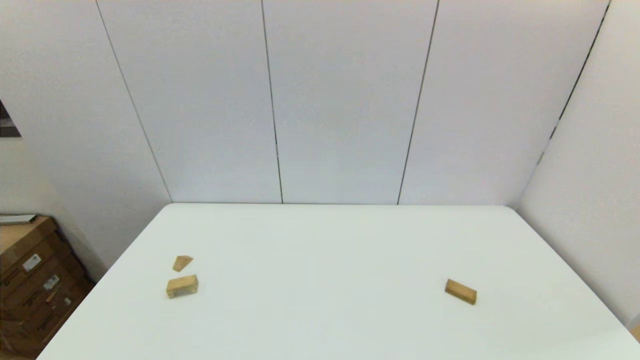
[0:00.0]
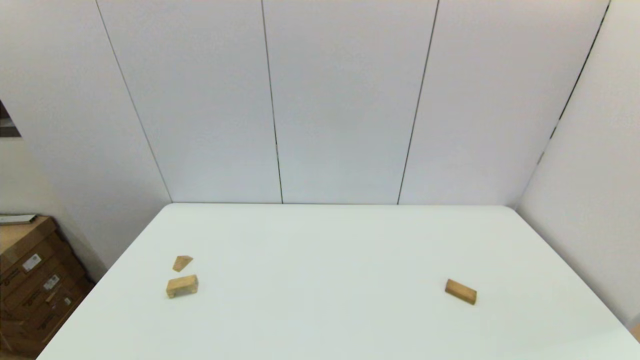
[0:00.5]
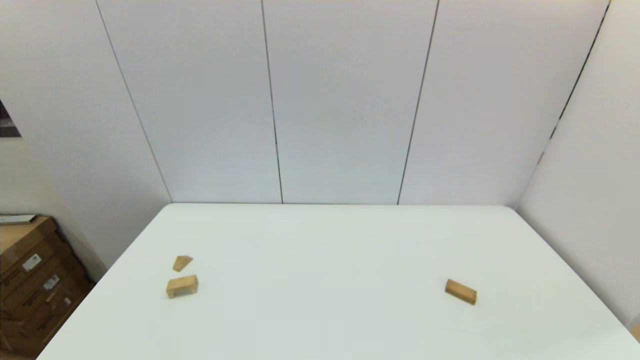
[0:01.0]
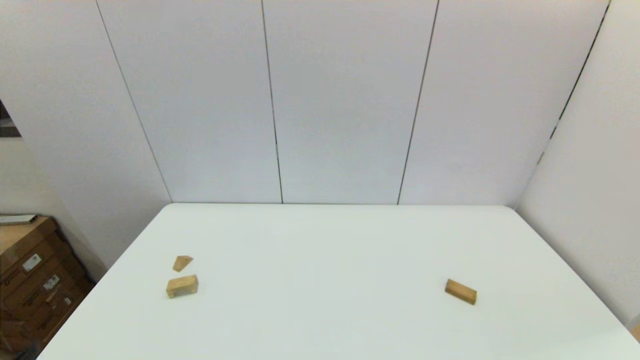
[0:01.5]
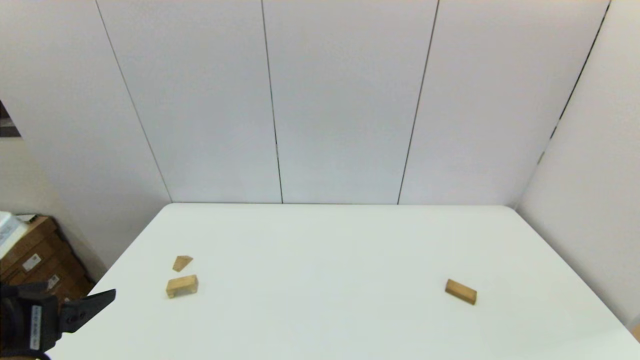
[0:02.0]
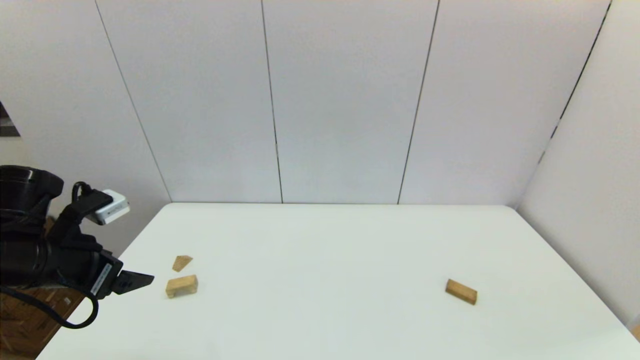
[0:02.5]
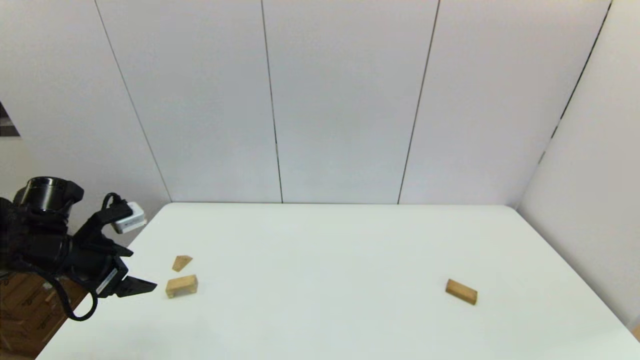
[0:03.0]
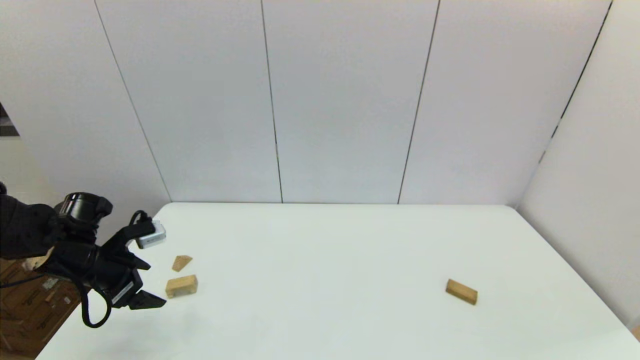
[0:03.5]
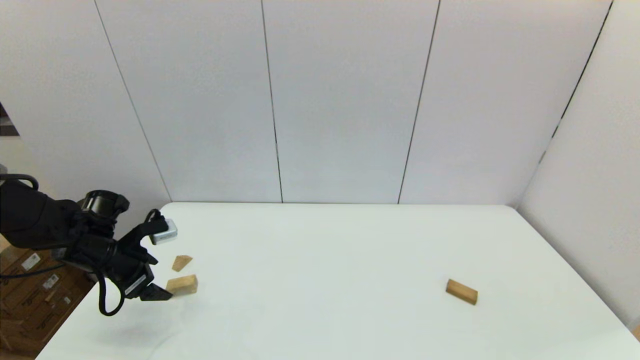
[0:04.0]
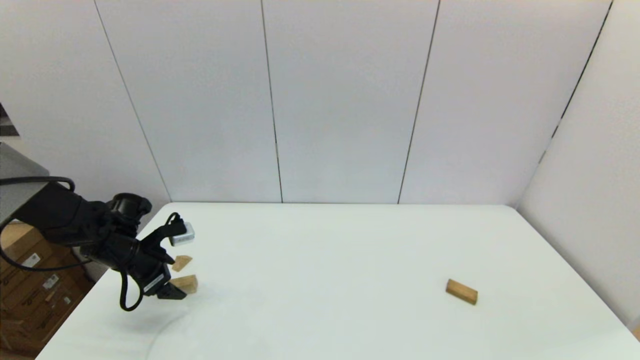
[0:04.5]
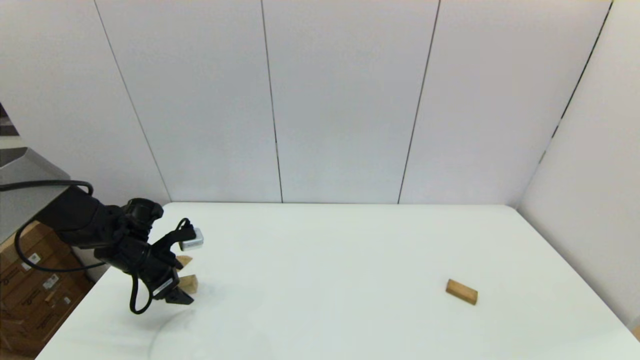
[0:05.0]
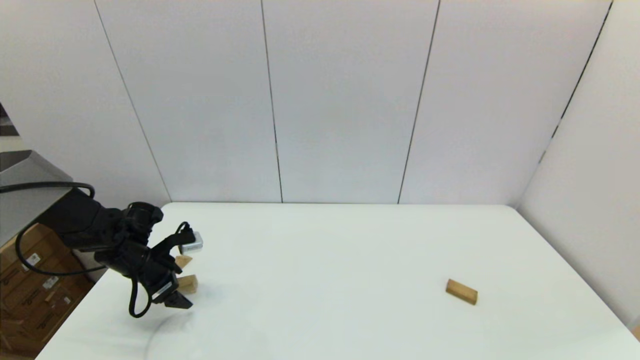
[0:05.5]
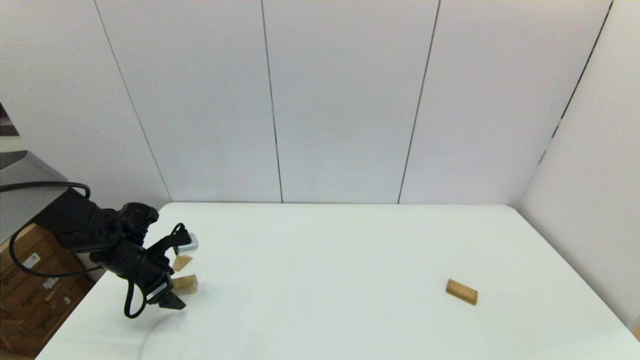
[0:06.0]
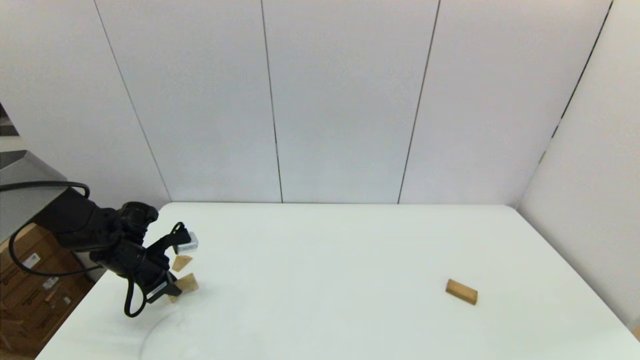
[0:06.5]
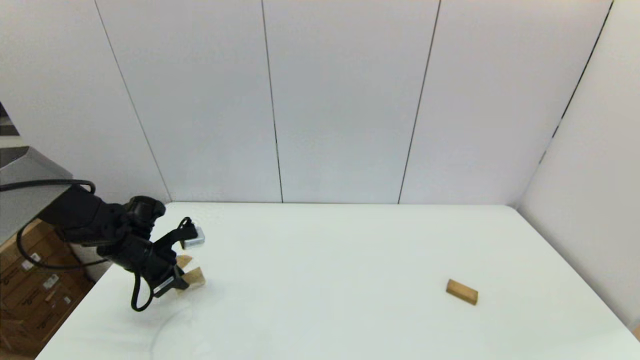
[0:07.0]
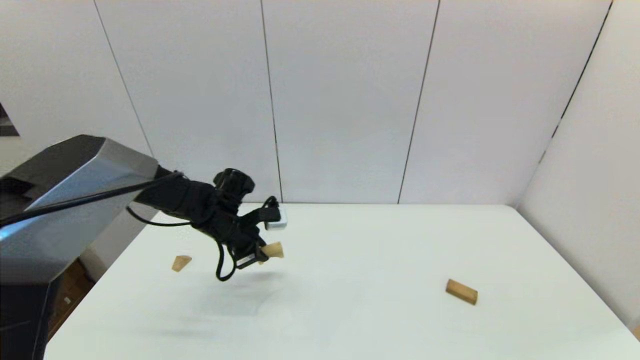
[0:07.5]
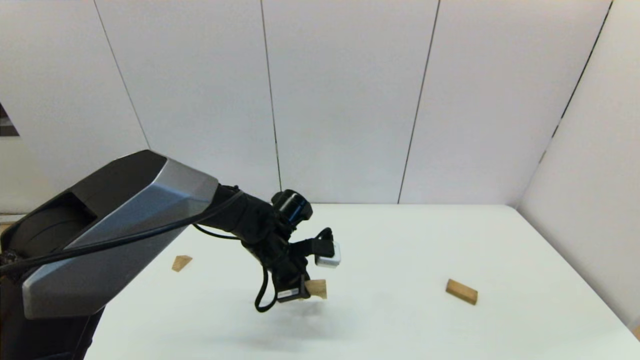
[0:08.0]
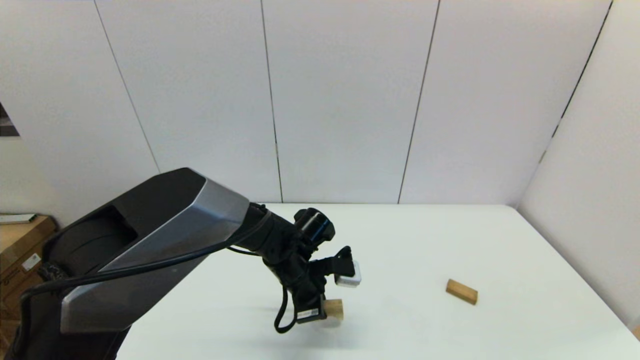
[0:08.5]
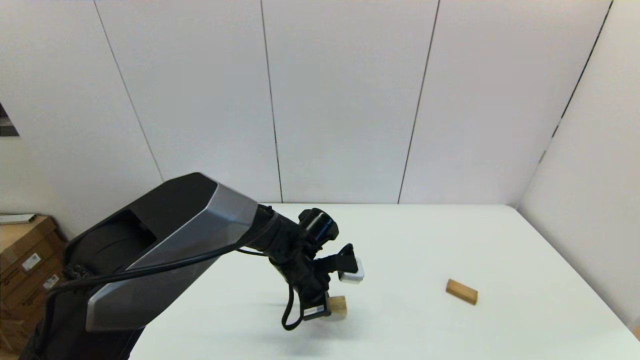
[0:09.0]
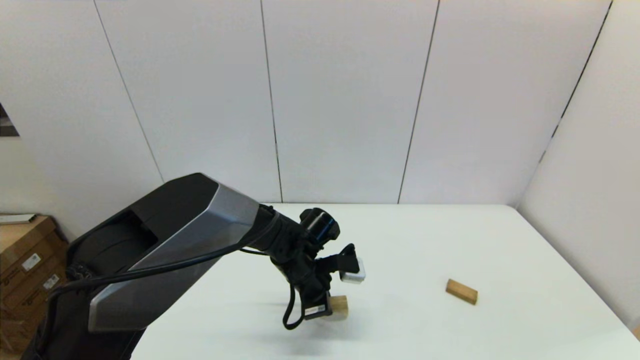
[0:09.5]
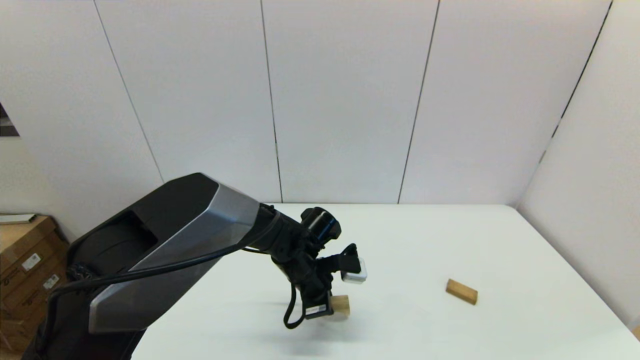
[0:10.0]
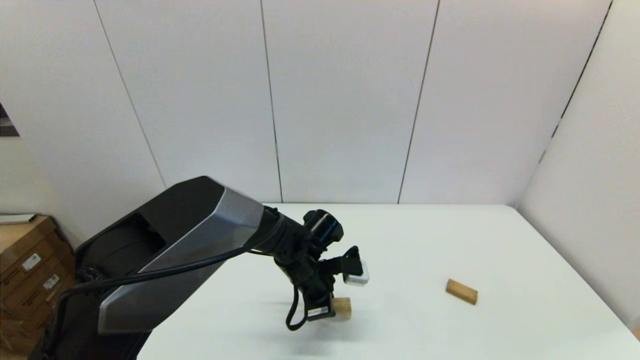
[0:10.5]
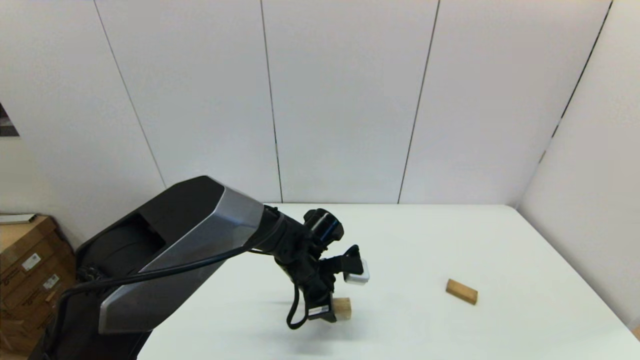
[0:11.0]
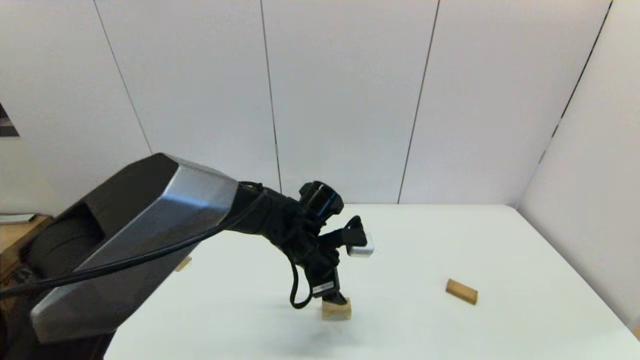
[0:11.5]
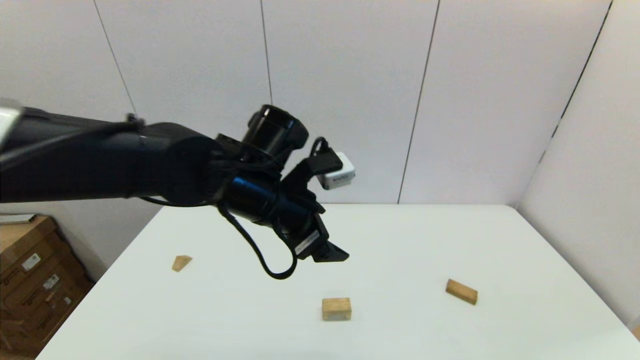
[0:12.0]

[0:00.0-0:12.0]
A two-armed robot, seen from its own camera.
Task of the whole recording: place the arched building blocks in the center of the table, set up the rectangular building blocks, and then set up the triangular building blocks.
Step, 0:01.5 to 0:06.5: Grasp the arch-shaped block with the left gripper.
Step, 0:07.0 to 0:10.5: Place the arch-shaped block in the center of view with the left gripper.
0:00.0 to 0:02.0: The left gripper is displaced forward and upward by some 15 cm.
0:02.0 to 0:04.0: The left gripper shifts about 25 cm forward and downward.
0:04.0 to 0:06.0: The left gripper moves roughly 5 cm.
0:06.0 to 0:08.0: The left gripper moves to the right, about 25 cm, and closes.
0:08.0 to 0:10.0: The left gripper moves about 5 cm.
0:10.0 to 0:12.0: The left gripper goes about 20 cm upward, and opens up.

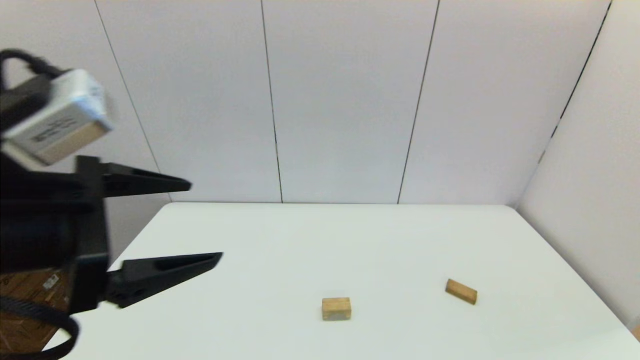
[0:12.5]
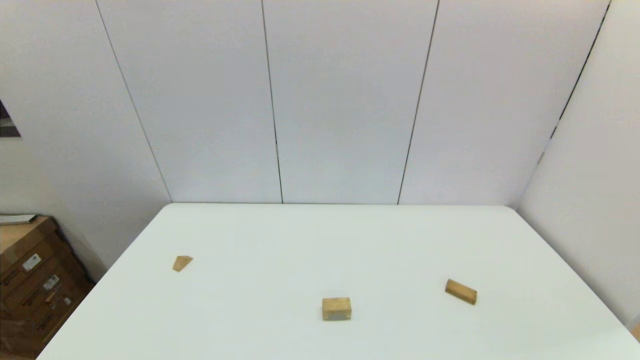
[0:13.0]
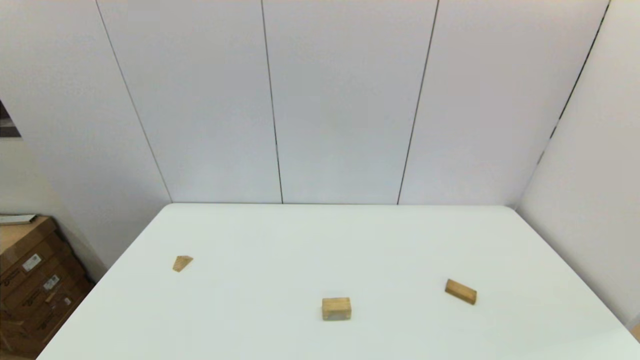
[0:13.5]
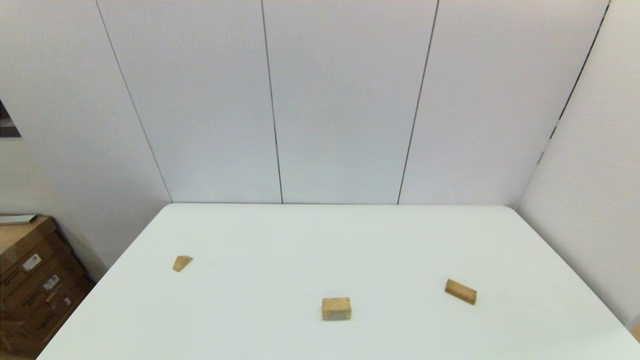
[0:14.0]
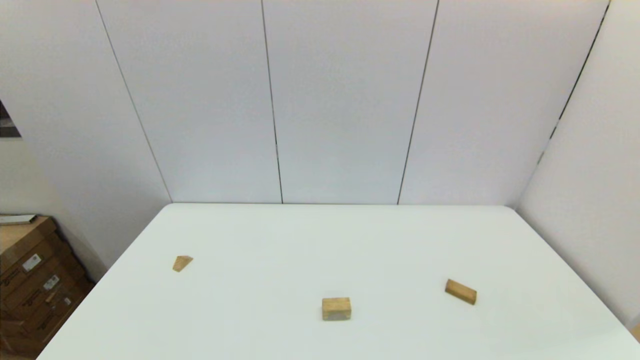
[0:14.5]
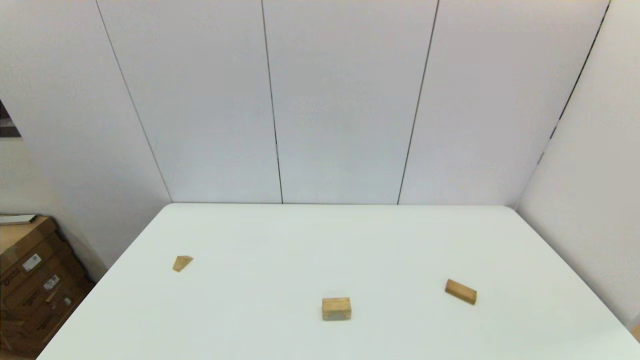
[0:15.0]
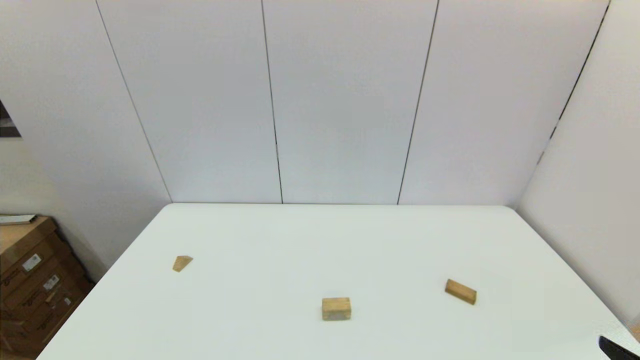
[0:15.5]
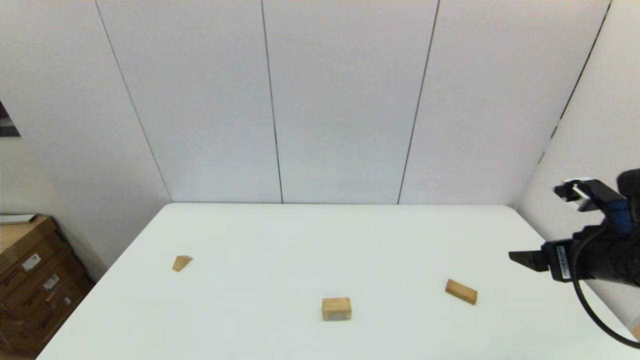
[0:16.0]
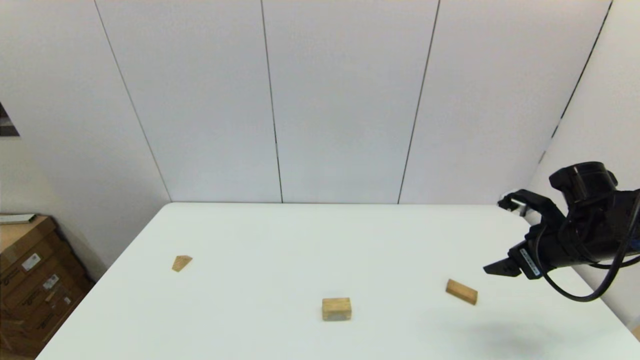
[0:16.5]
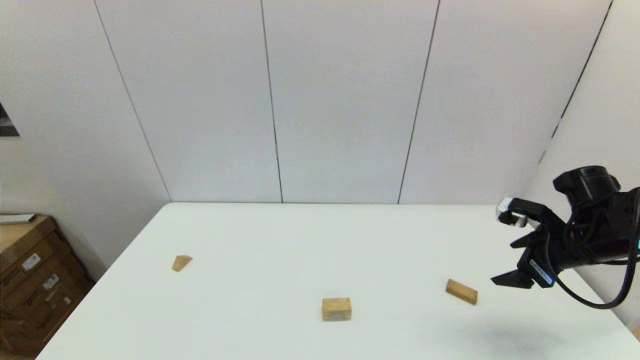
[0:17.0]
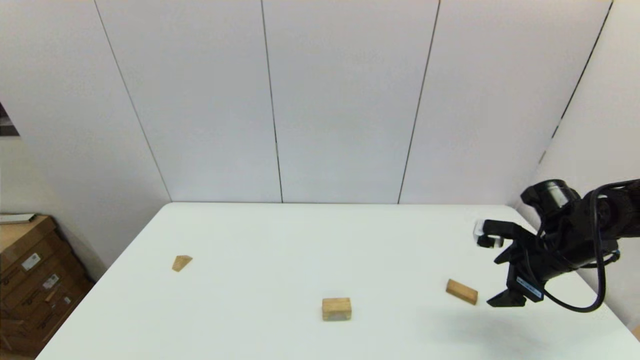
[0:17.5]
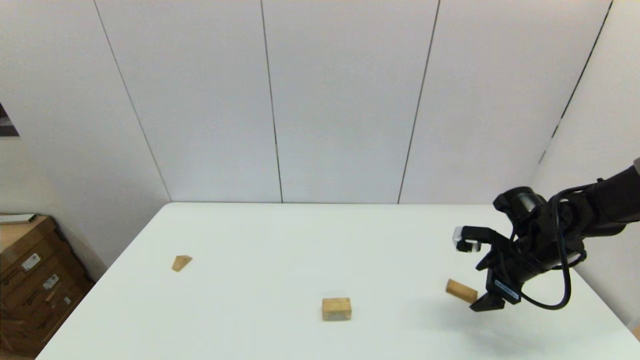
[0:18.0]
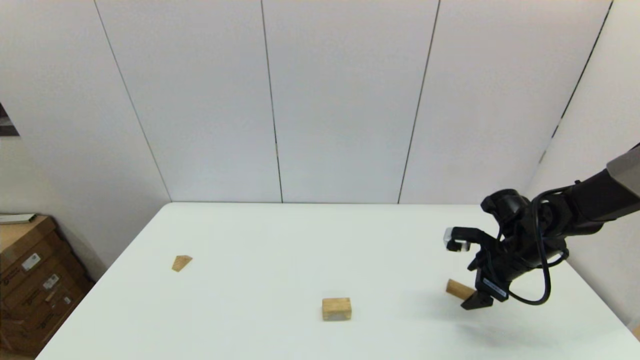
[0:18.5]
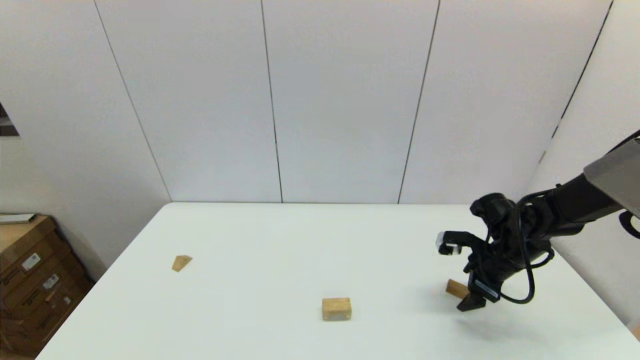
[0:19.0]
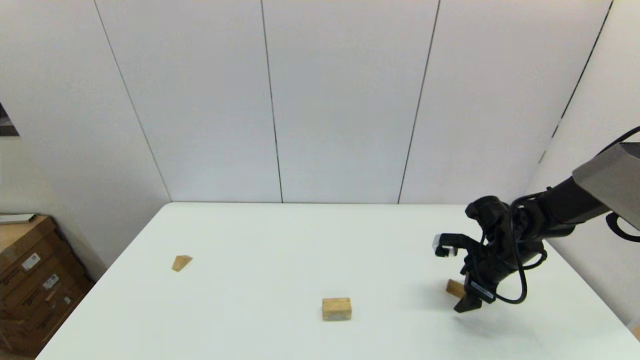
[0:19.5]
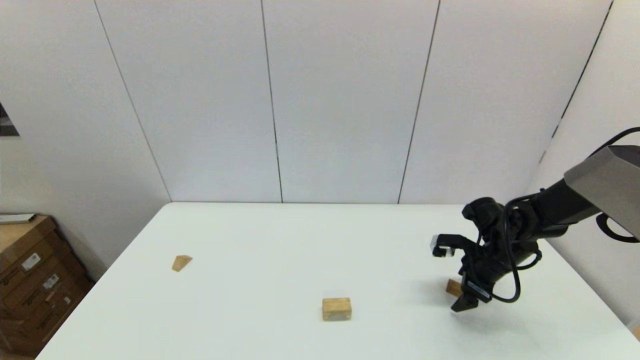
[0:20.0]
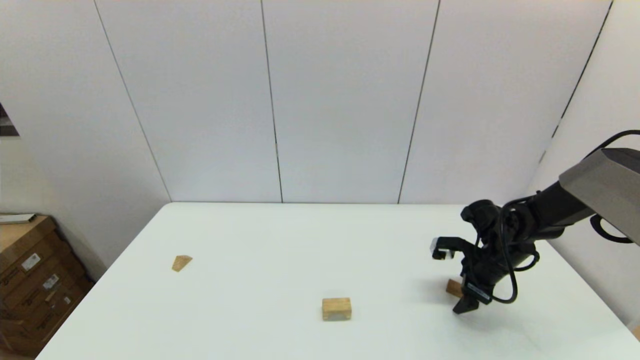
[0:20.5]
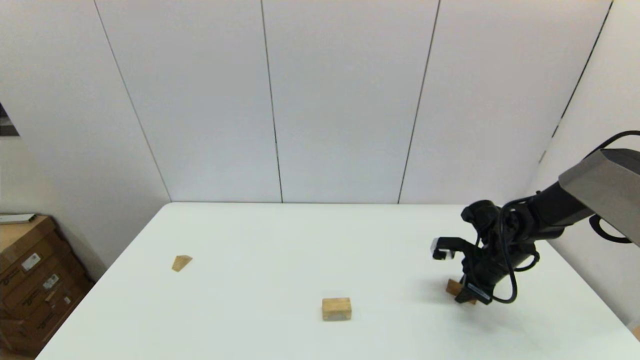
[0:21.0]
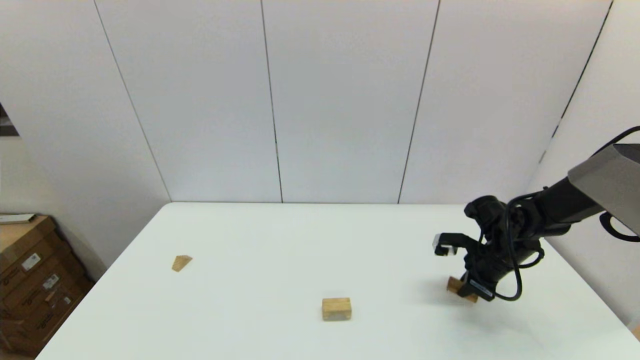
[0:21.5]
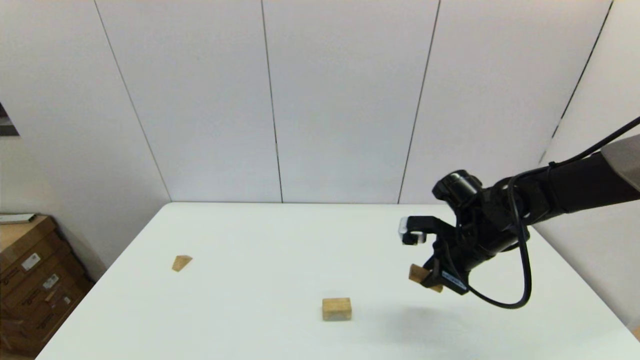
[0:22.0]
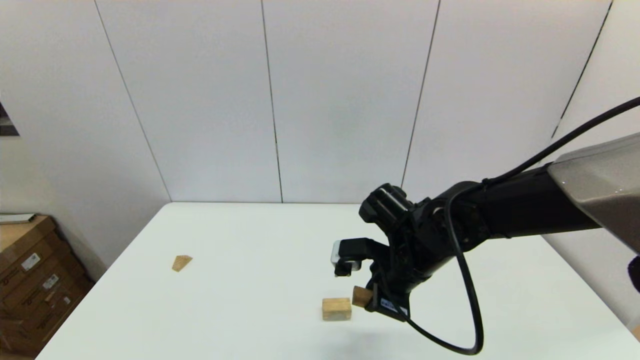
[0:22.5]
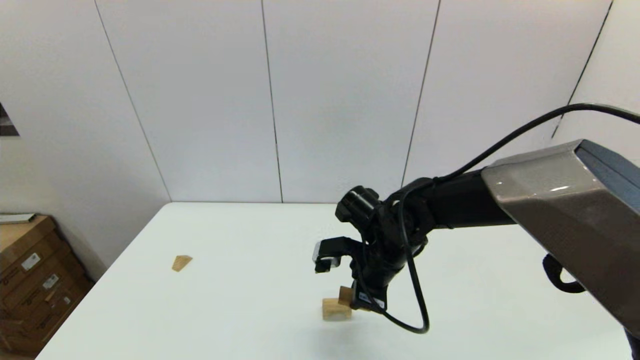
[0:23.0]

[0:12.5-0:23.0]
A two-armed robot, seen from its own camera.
Task of the whole recording: place the arched building blocks in the center of the table, set up the rectangular building blocks, and then set up the triangular building blocks.
Step, 0:12.5 to 0:21.0: Grasp the box-shaped block with the right gripper.
0:12.5 to 0:14.5: The left gripper moves downward, backward and to the left, about 30 cm.
0:14.5 to 0:16.5: The right gripper moves forward, approximately 30 cm.
0:16.5 to 0:19.0: The right gripper travels downward and forward by about 10 cm.
0:19.0 to 0:21.0: The right gripper closes its fingers.
0:21.0 to 0:23.0: The right gripper is displaced to the left by some 25 cm.
